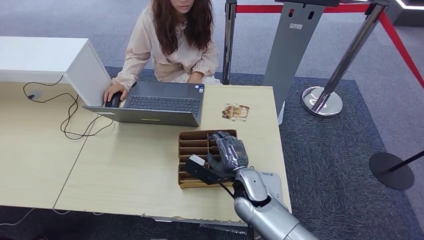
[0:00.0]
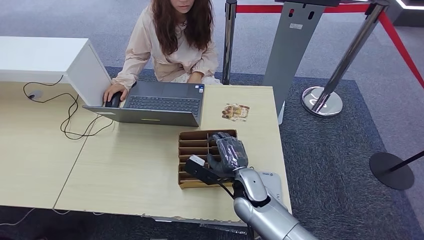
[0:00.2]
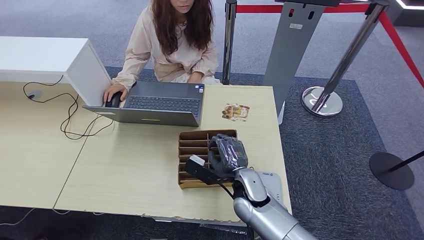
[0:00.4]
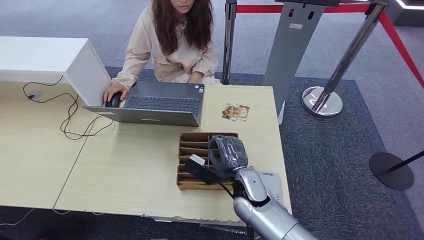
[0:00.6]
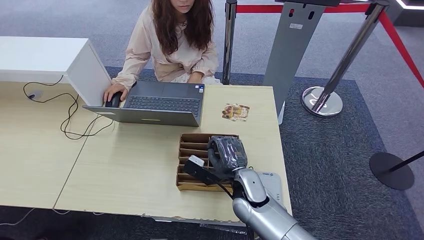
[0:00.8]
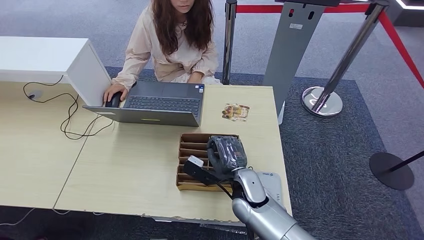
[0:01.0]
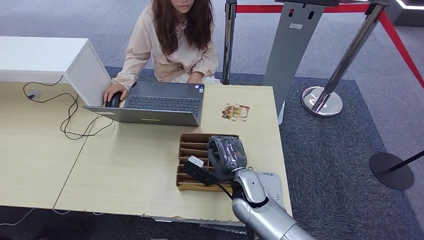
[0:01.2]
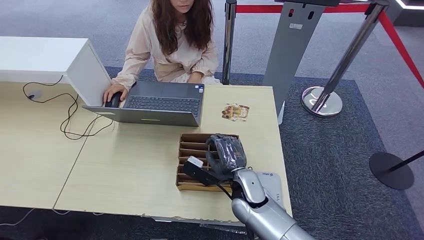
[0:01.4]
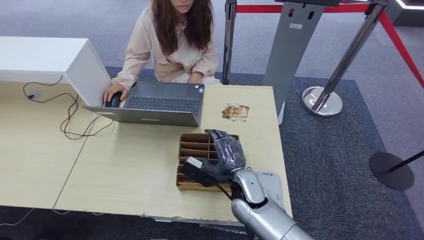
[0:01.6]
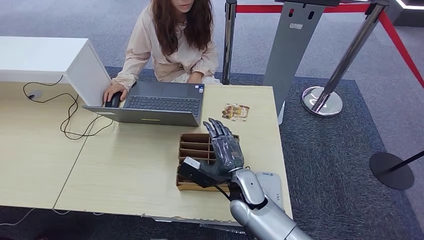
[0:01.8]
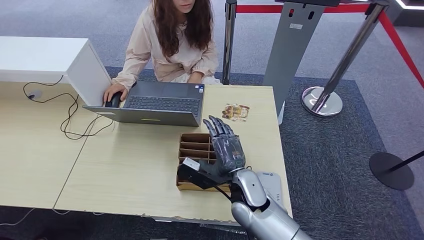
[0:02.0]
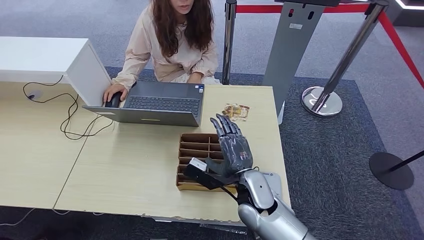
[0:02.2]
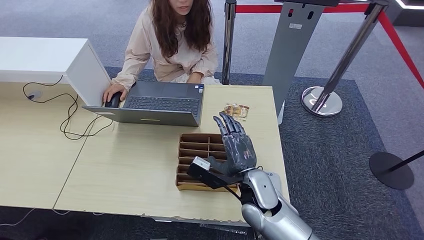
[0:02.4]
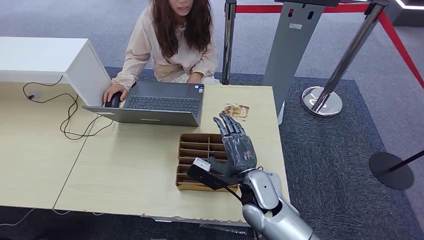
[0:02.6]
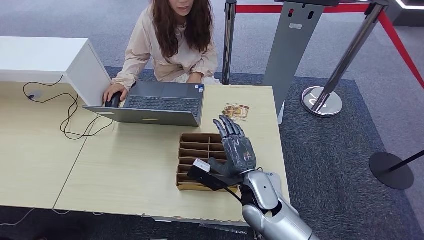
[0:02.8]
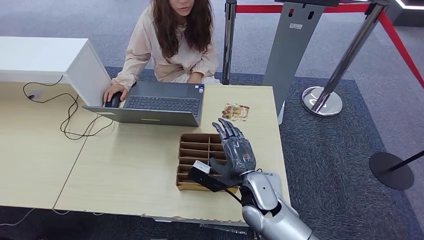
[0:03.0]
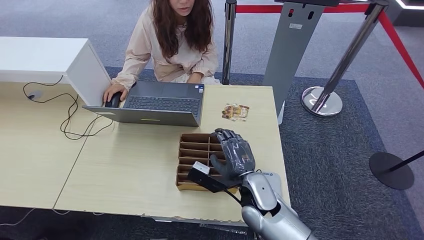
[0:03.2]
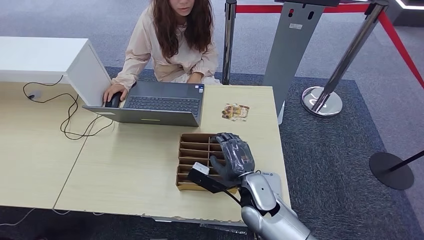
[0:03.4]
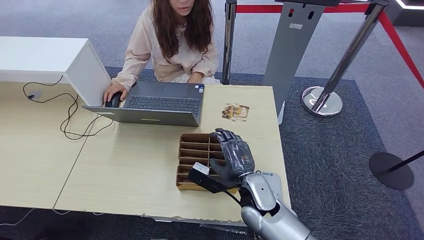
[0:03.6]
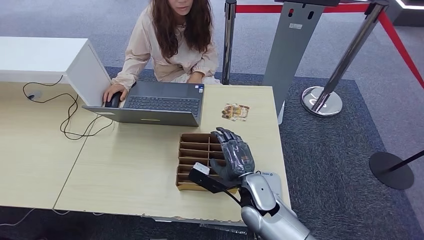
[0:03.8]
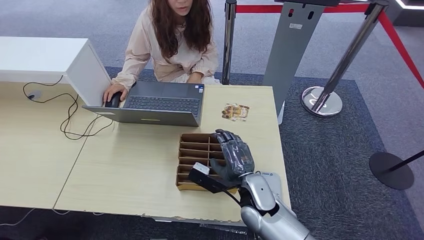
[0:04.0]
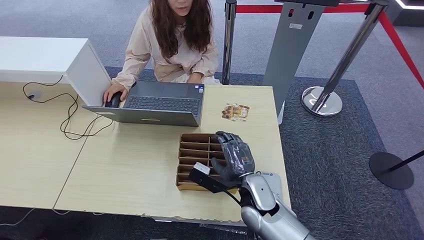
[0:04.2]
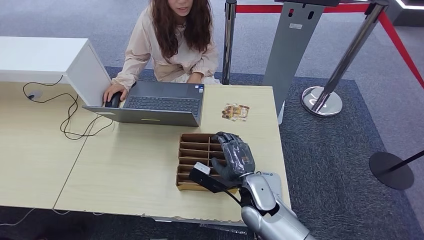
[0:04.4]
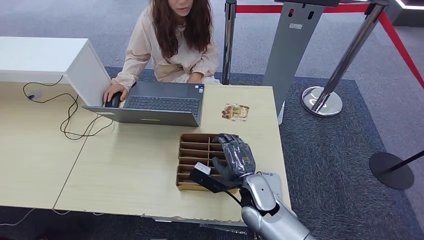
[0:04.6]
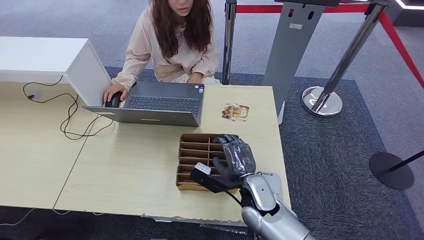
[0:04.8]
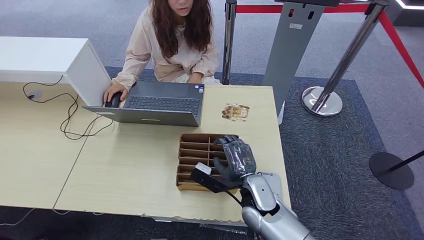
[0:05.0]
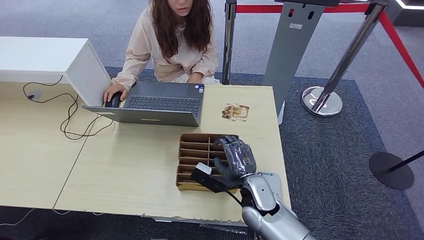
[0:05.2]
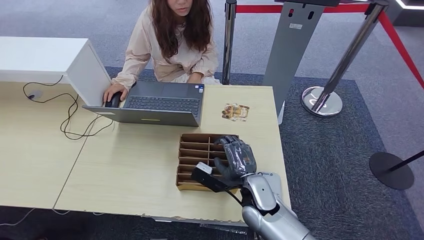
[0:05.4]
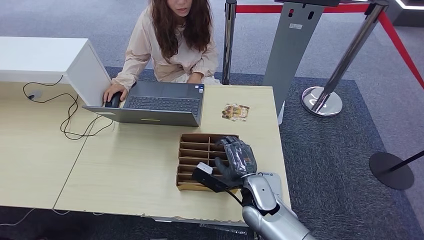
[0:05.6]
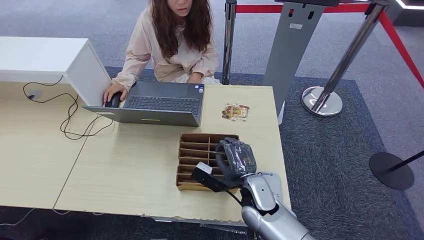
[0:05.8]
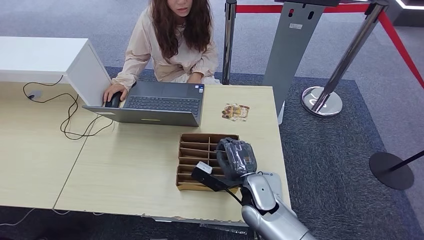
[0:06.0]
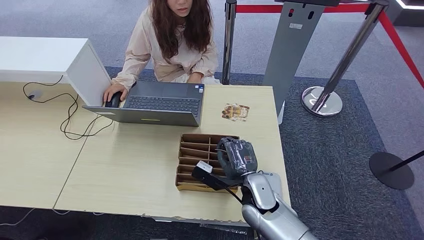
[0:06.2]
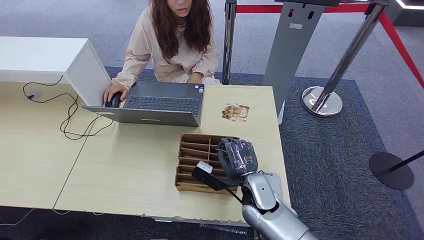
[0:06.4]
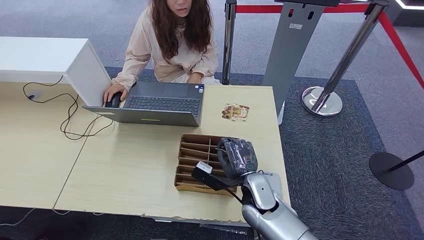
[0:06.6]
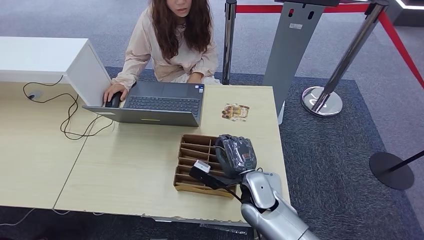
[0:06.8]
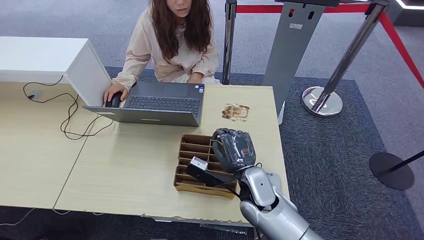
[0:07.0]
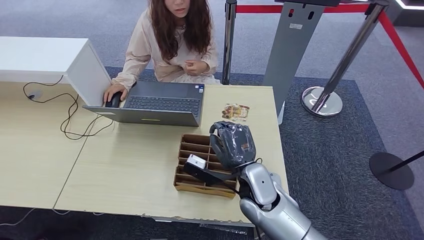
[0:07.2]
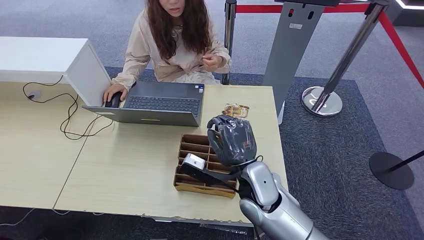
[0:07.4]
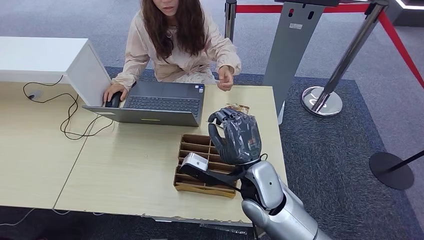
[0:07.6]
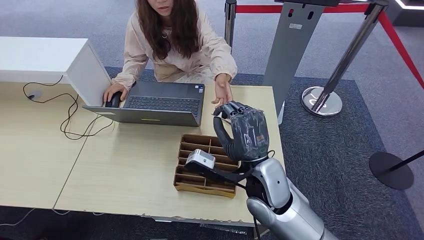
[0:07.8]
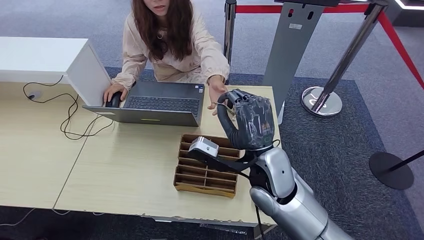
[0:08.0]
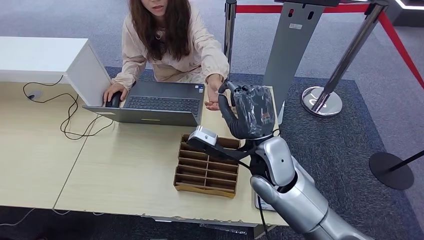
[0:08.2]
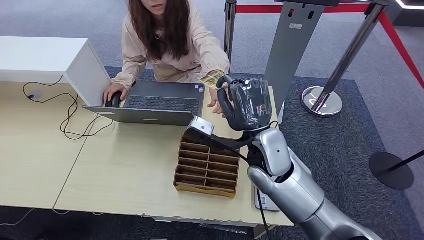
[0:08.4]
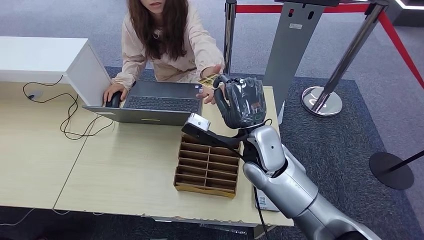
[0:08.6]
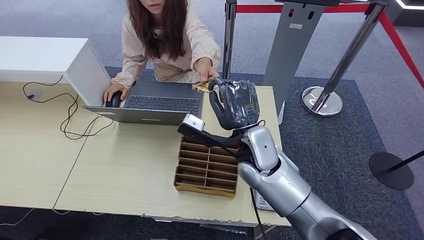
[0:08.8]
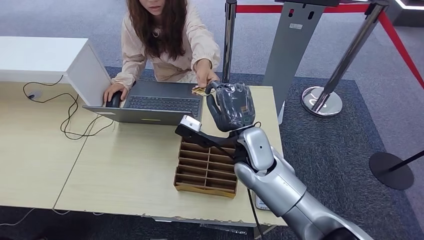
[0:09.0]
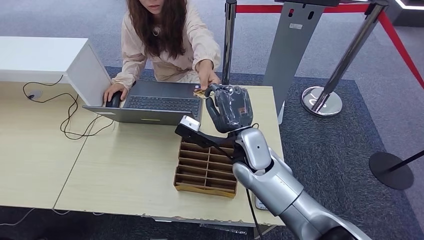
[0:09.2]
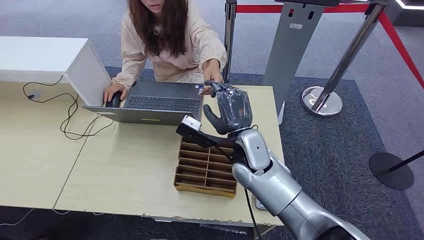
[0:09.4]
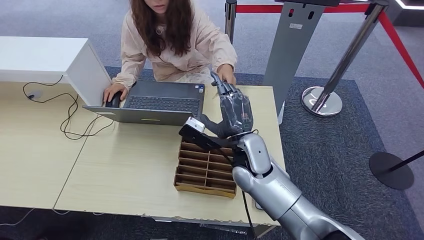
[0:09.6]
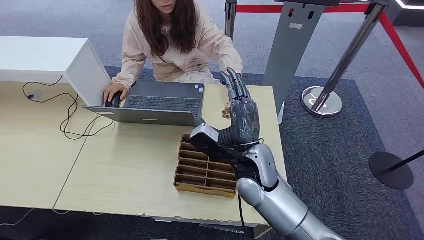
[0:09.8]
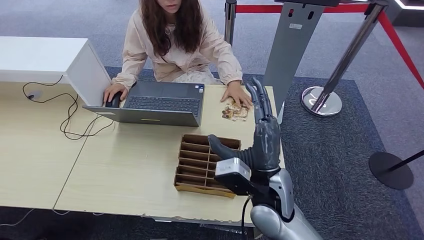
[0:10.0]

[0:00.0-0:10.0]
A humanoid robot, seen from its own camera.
Step, 0:00.0 to 0:07.2: Pick up the room key from the key card box.
Step, 0:07.4 to 0:10.0: Hand the room key to the person.
0:00.0 to 0:01.4: The two hands keep their place.
0:01.4 to 0:04.2: The hands make only small movements.
0:04.2 to 0:05.8: Both hands stay about where they are.
0:05.8 to 0:07.2: The right hand goes some 5 cm upward.
0:07.2 to 0:08.6: The right hand moves upward, roughly 10 cm.
0:08.6 to 0:10.0: The right hand moves backward, some 10 cm.

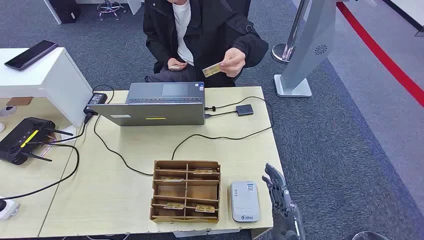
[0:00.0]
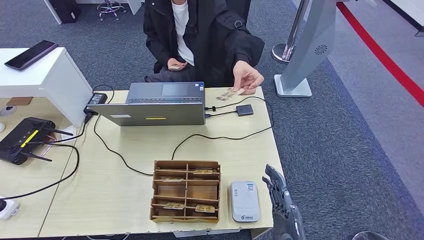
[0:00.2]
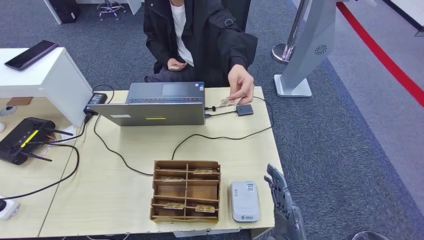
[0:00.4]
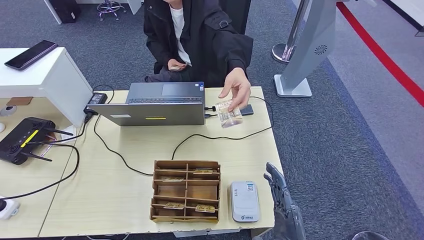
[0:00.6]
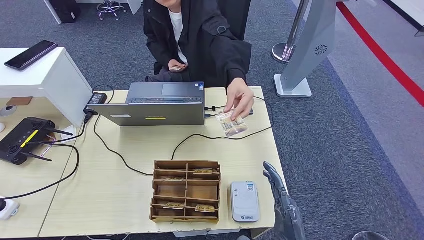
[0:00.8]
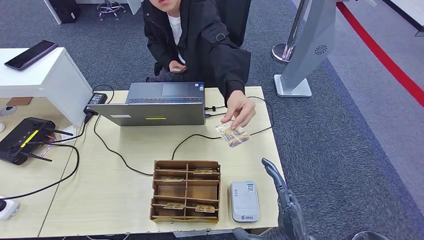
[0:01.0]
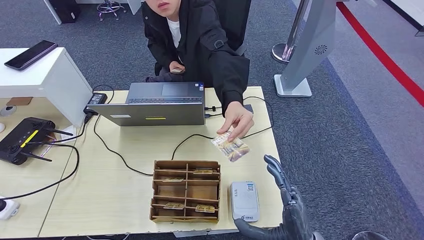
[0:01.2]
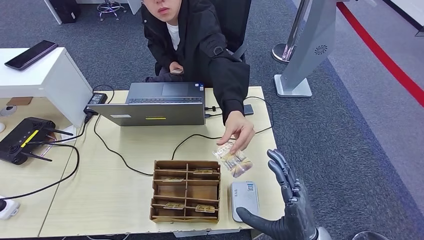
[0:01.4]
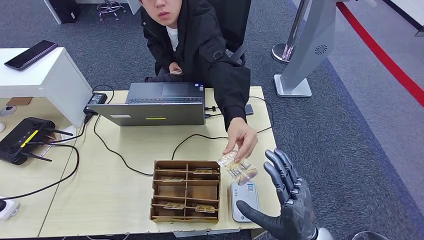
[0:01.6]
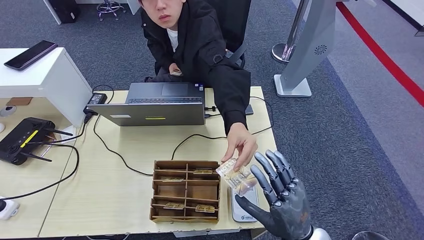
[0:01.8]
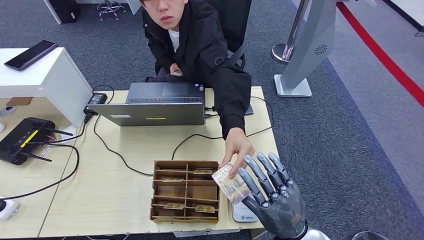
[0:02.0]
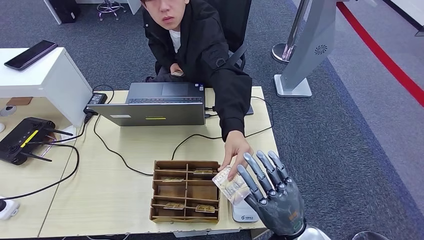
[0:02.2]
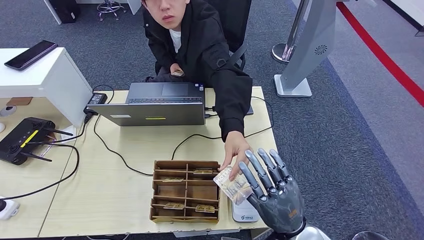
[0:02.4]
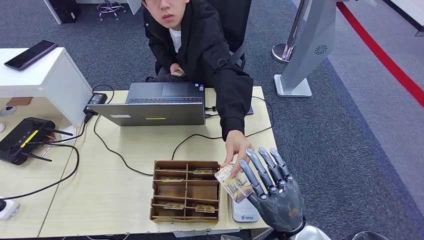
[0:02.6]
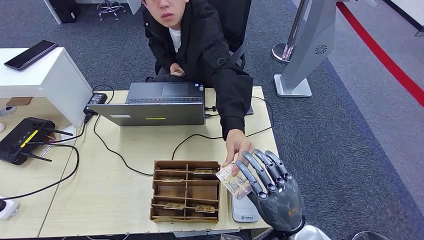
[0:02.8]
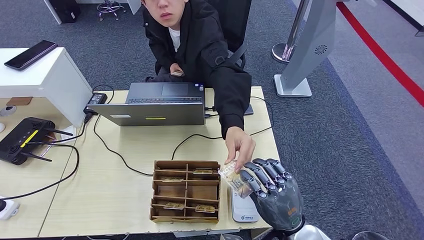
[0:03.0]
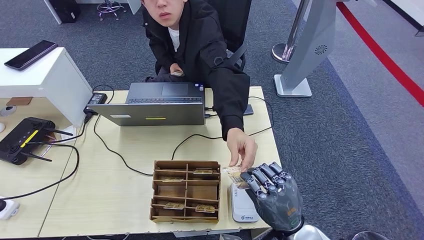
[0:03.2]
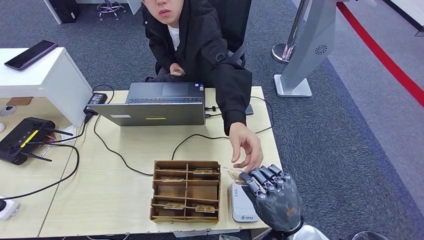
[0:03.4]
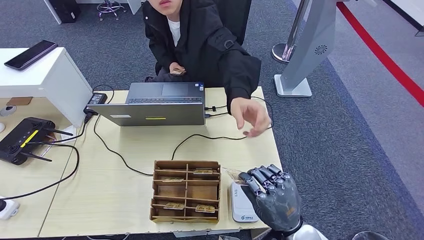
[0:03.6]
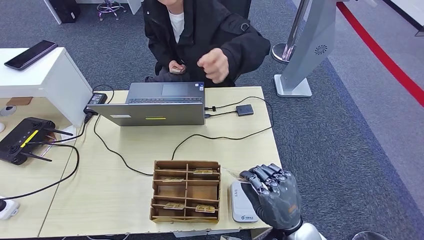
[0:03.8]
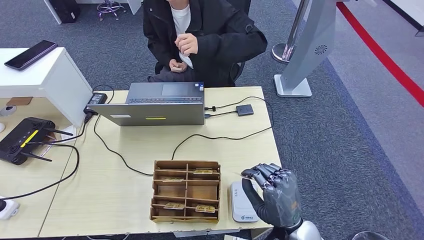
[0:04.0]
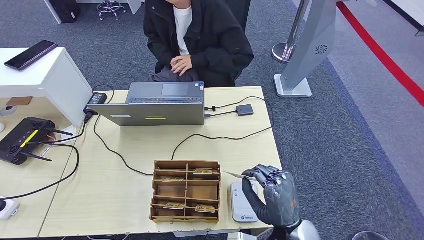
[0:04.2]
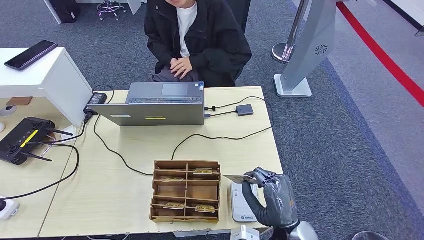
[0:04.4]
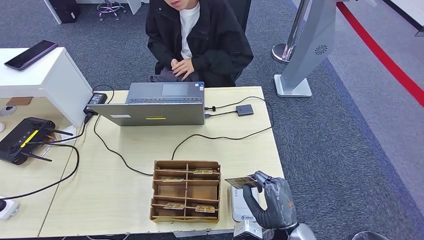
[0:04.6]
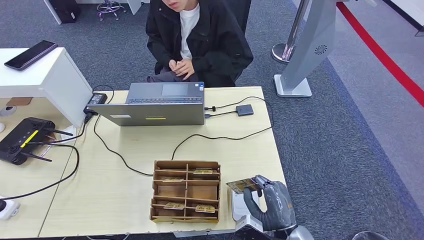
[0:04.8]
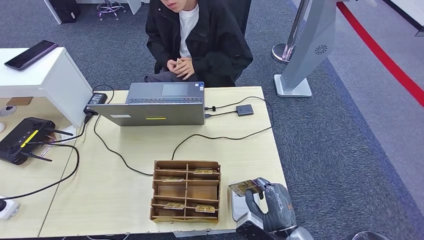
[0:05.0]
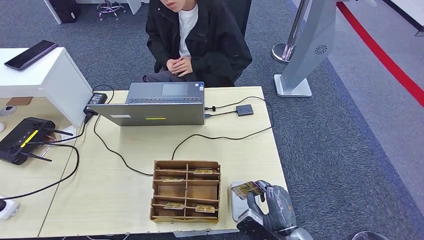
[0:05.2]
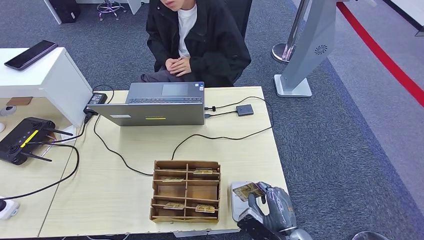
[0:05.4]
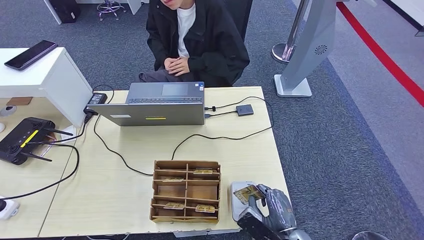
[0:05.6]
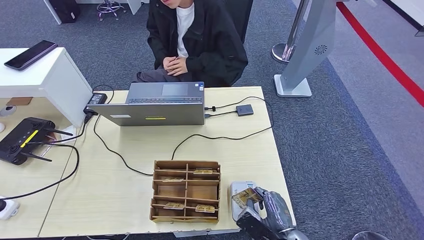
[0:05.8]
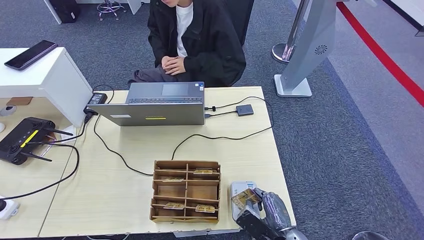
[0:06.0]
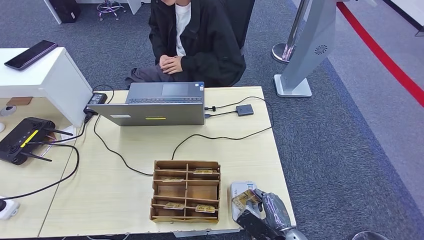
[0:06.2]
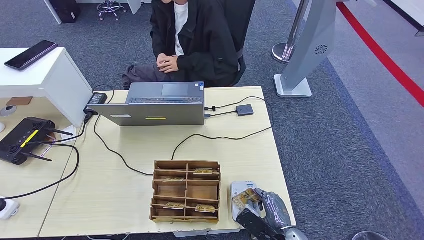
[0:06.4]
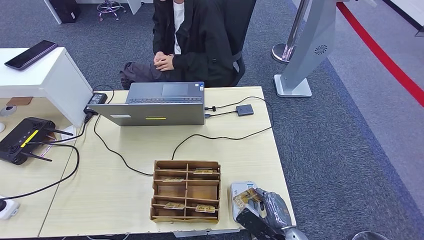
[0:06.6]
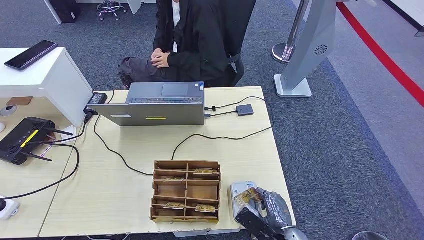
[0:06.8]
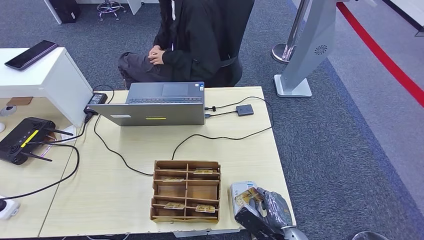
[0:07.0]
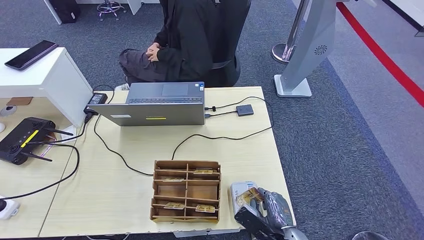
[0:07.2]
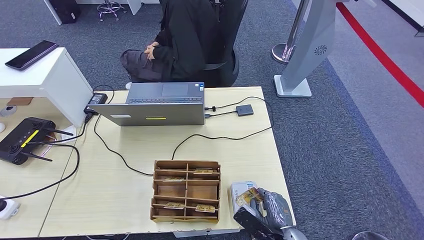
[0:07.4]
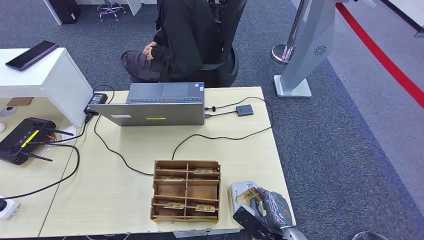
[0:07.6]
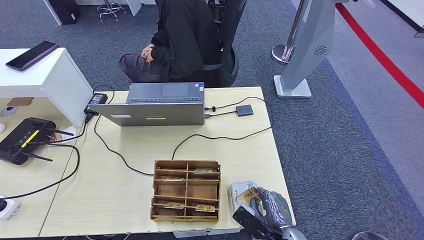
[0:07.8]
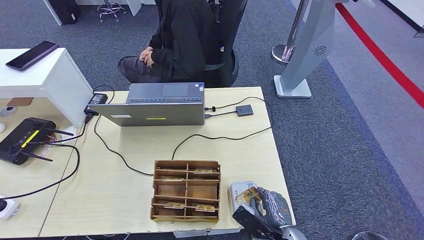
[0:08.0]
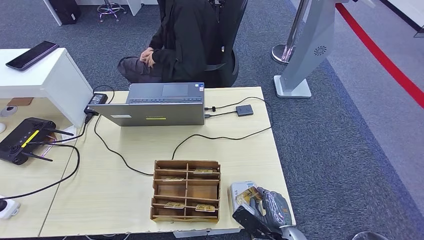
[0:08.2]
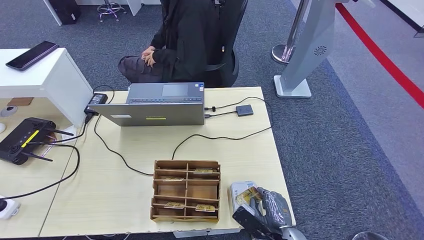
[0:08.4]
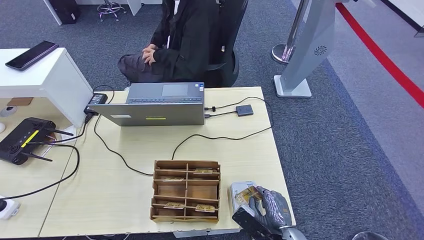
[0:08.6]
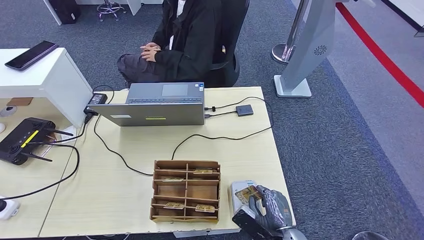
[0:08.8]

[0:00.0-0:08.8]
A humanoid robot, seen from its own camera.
Step, 0:00.0 to 0:03.4: Take the ID card from the person's hand.
0:04.4 to 0:05.8: The right hand goes roughly 5 cm downward.
0:05.8 to 0:08.8: The hands stay close to where they were, moving slightly.
